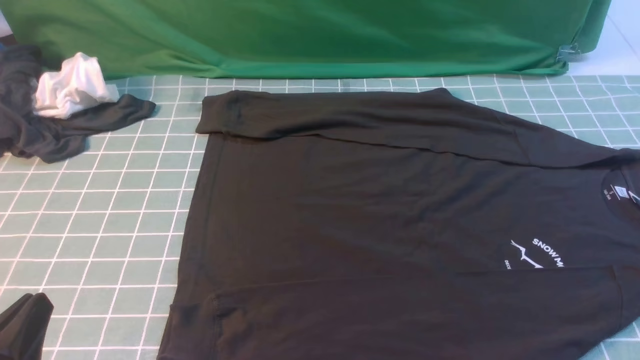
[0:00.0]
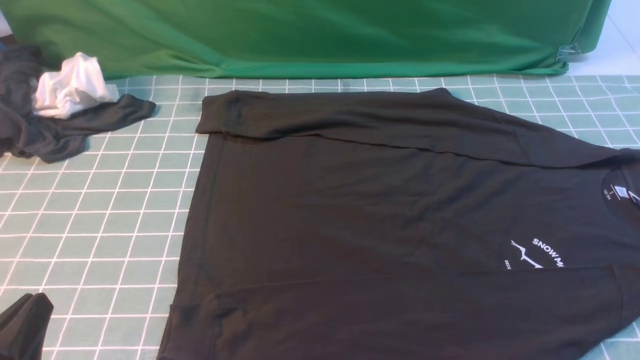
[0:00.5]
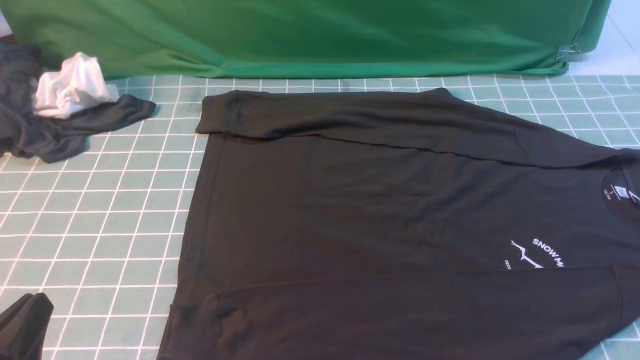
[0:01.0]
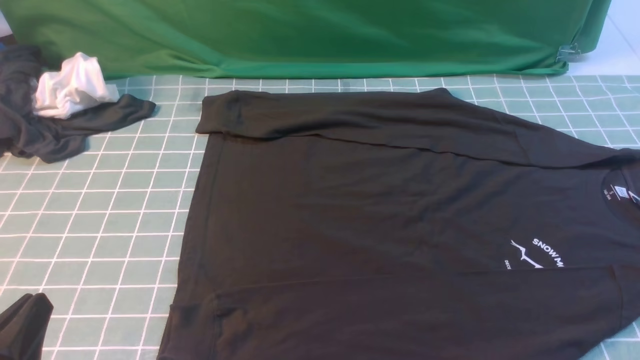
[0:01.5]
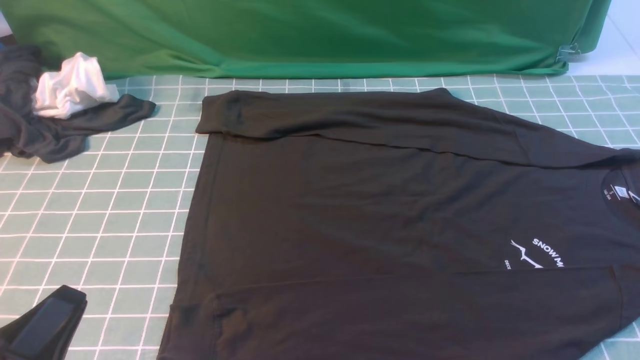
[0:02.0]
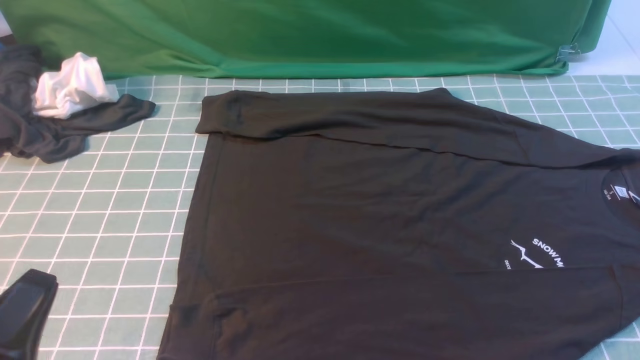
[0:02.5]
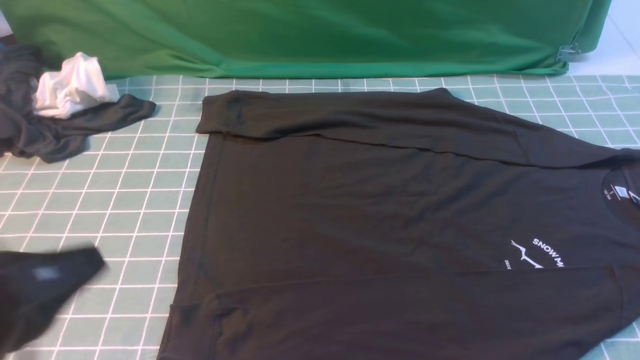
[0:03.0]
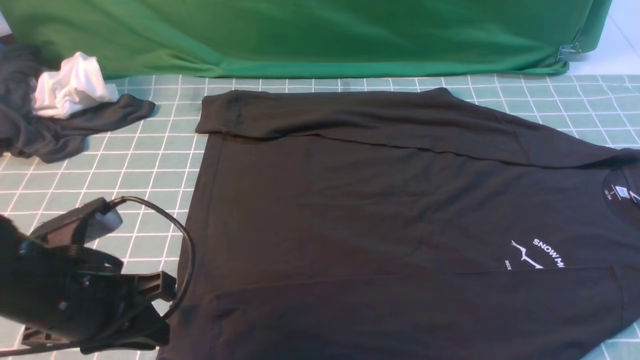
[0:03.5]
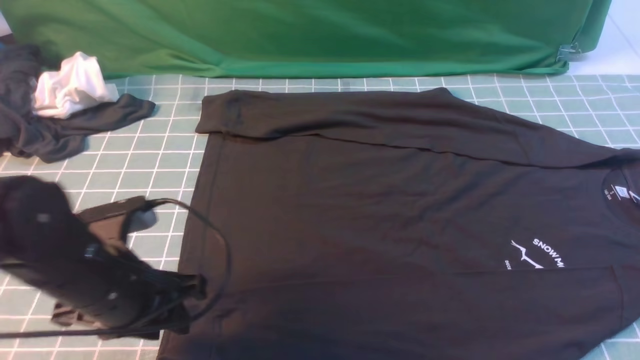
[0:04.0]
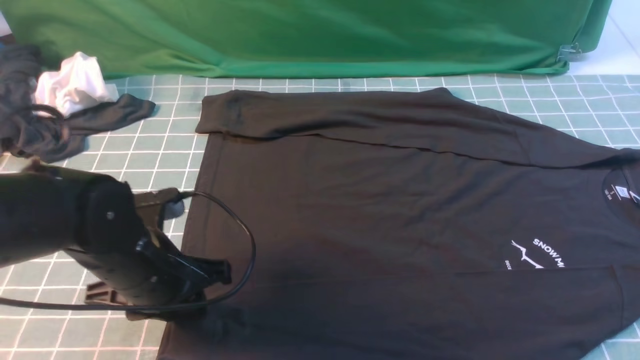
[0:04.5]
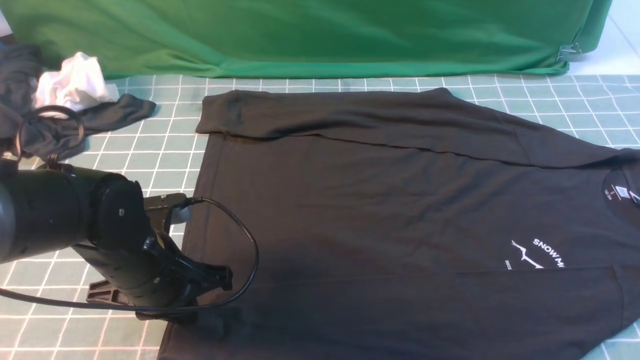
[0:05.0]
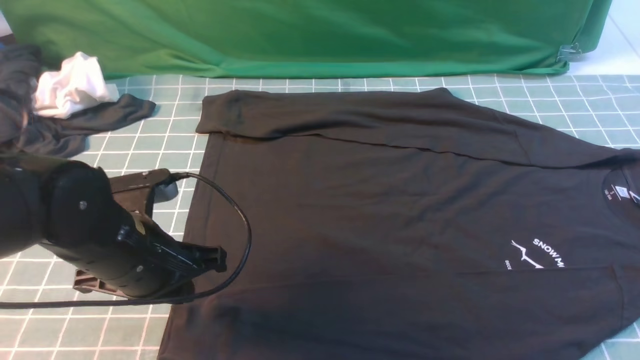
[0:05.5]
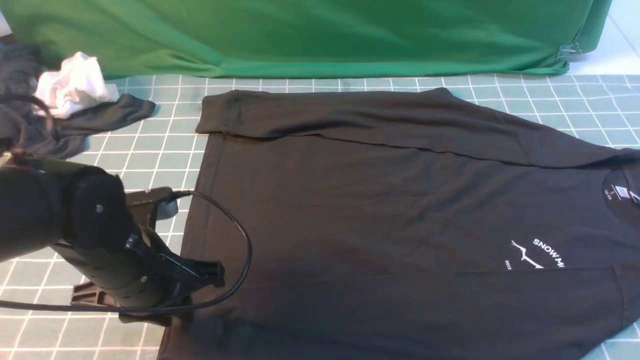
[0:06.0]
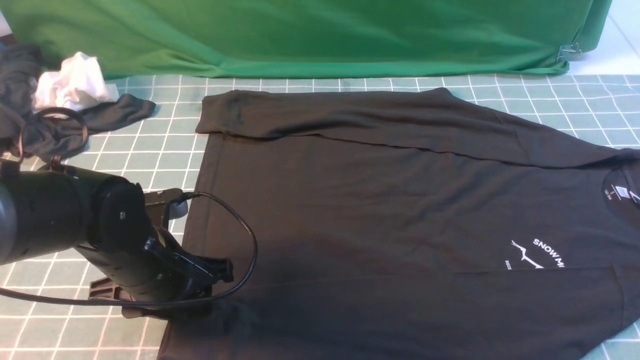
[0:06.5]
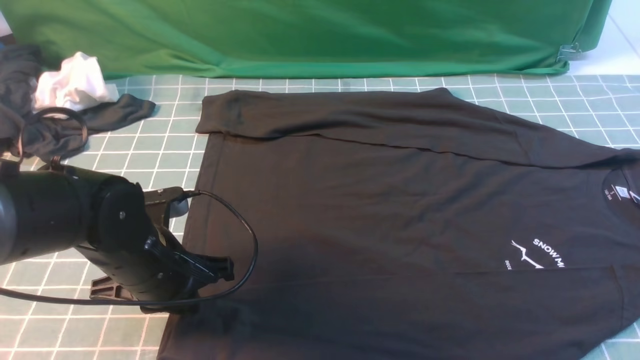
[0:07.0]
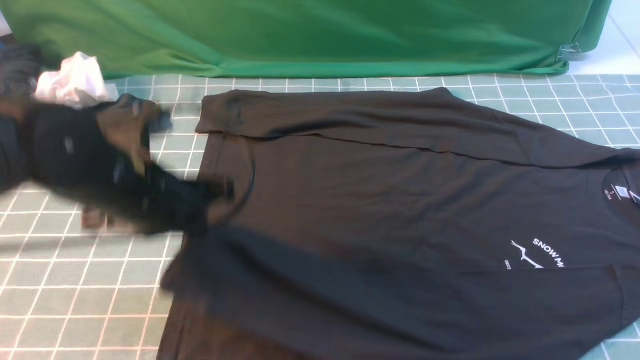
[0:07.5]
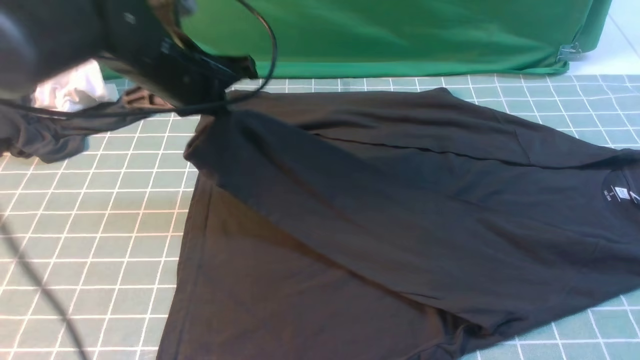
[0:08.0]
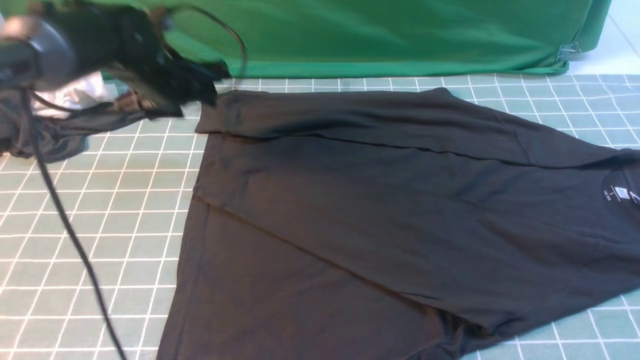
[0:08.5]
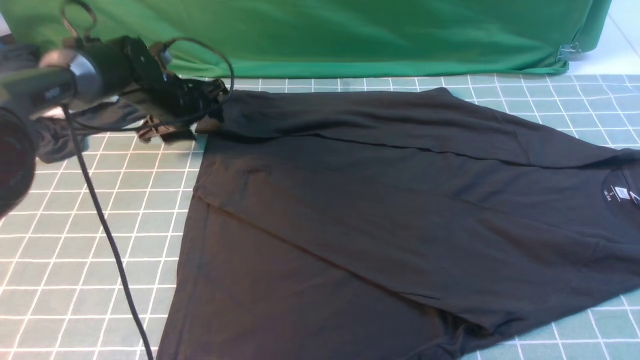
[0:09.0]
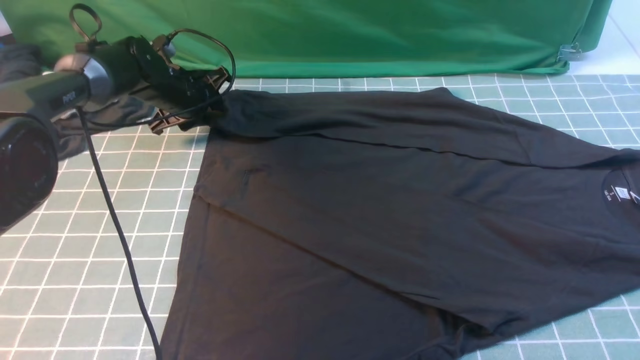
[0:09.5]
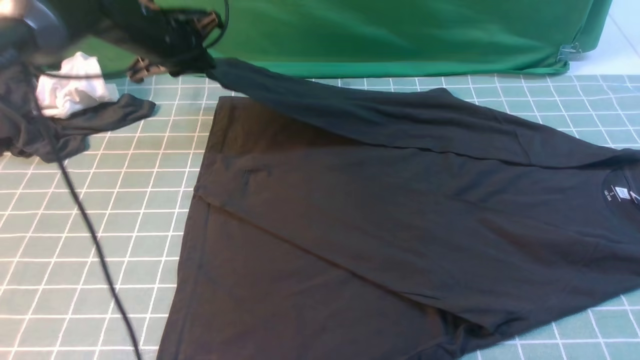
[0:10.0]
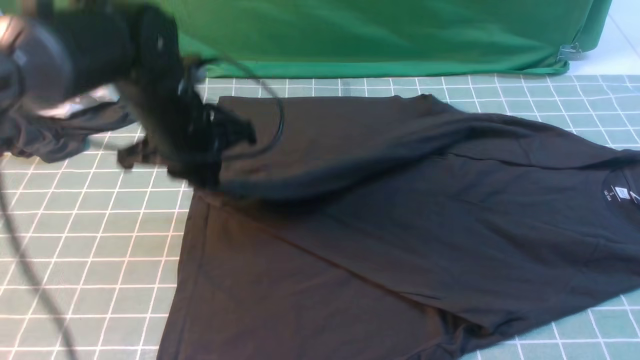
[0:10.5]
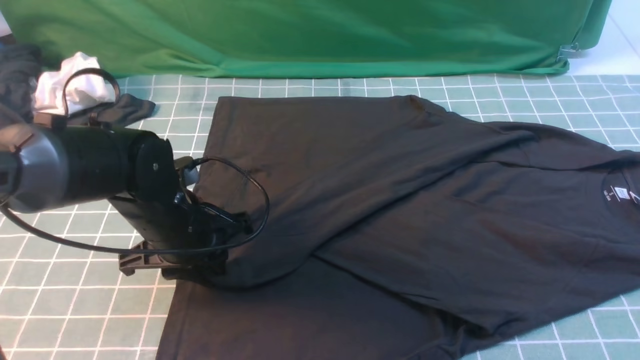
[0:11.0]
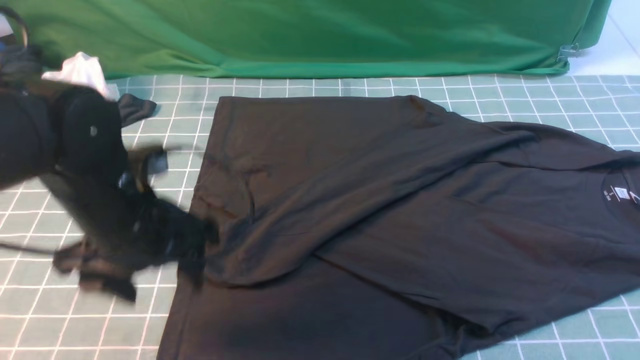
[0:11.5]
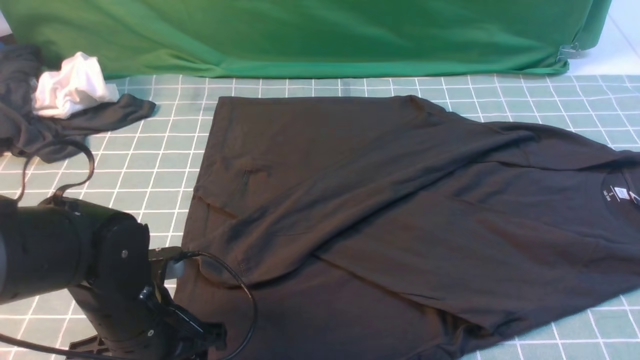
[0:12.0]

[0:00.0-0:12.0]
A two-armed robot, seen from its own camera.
Step, 0.0 to 7.0 s: use the left arm to clamp the cuff closest to it.
Step, 7.5 to 8.0 s: use the left arm to drag and place the cuff at the centered position on the left edge of the fabric.
Step, 8.5 to 9.5 s: use the left arm to clamp the cuff farthest from it.
Step, 10.0 to 11.0 s: use the left arm to drag and drop the cuff onto the cuff closest to the left arm.
2.0 to 4.0 s: The left gripper heads forward, covering roughly 15 cm, and opens its fingers.
4.0 to 6.0 s: The left gripper closes, then opens again.
6.0 to 8.0 s: The left gripper heads forward and upward, covering approximately 20 cm.
8.0 to 10.0 s: The left gripper moves forward, about 10 cm, and opens and closes again.
10.0 to 12.0 s: The left gripper shifts roughly 30 cm backward, and opens.

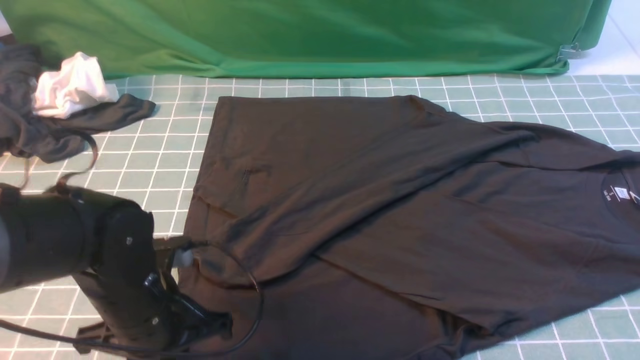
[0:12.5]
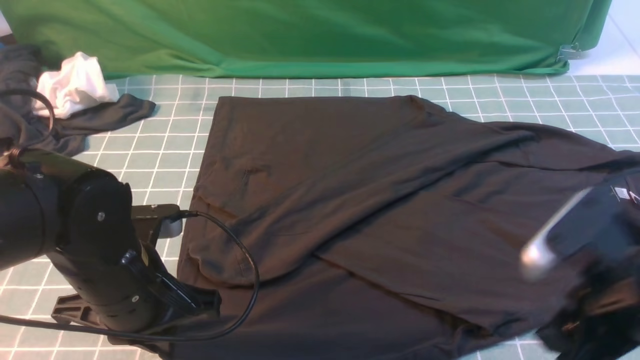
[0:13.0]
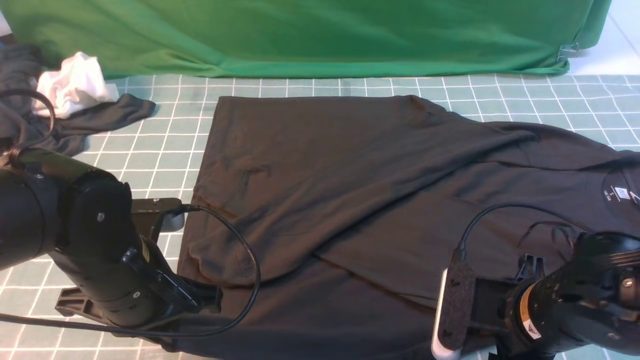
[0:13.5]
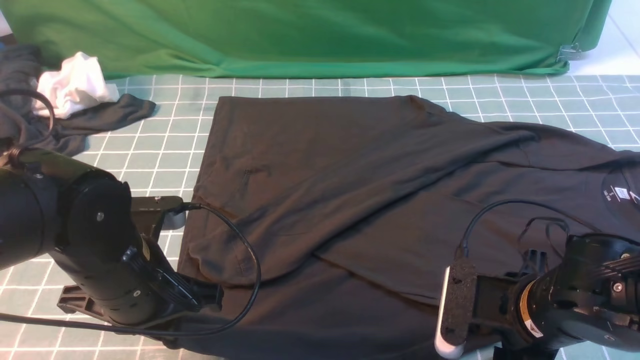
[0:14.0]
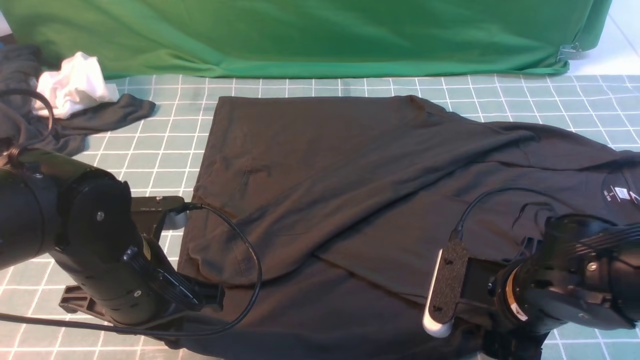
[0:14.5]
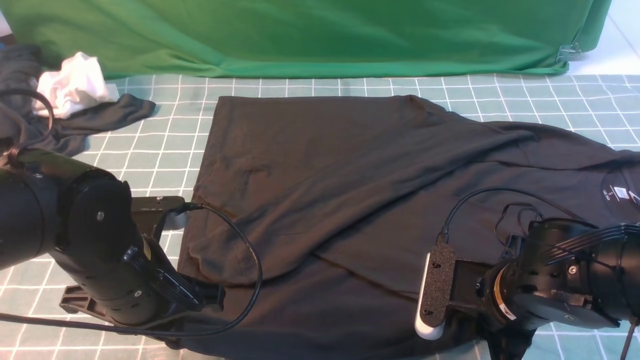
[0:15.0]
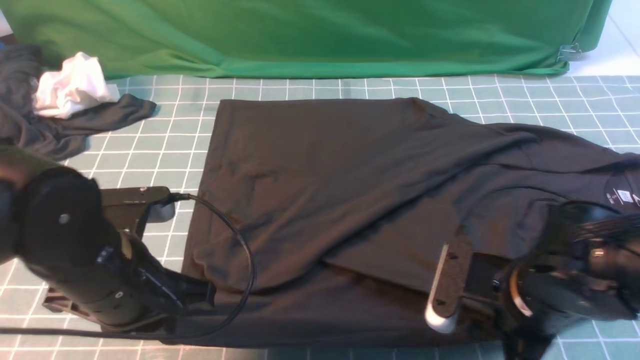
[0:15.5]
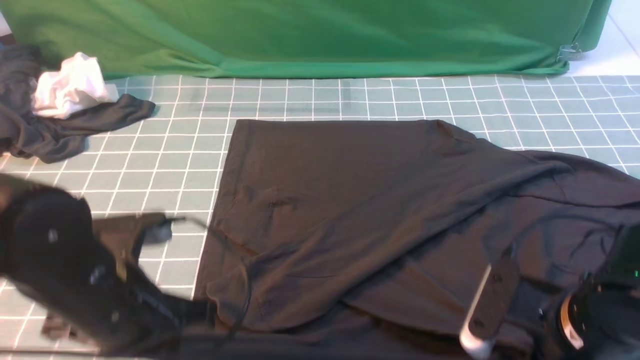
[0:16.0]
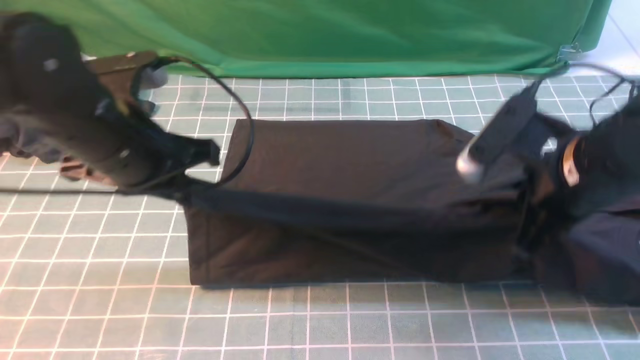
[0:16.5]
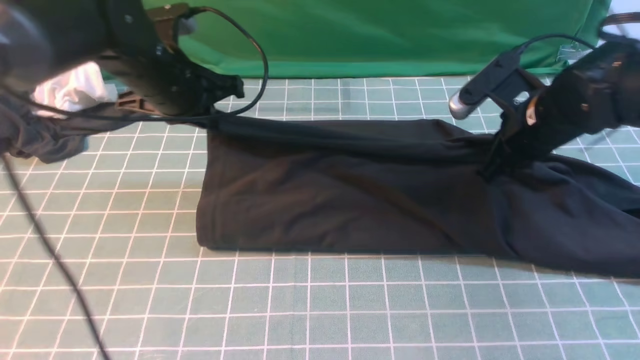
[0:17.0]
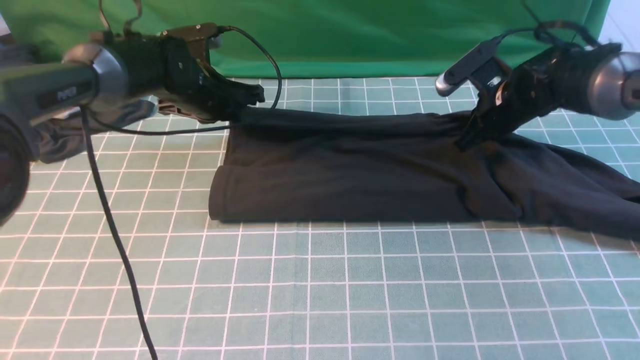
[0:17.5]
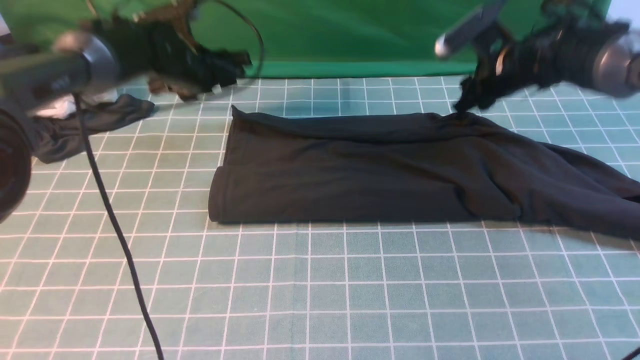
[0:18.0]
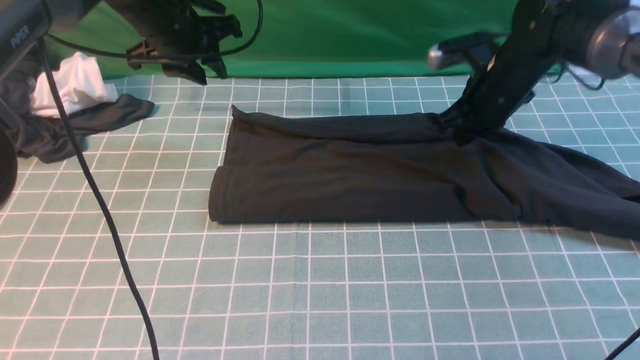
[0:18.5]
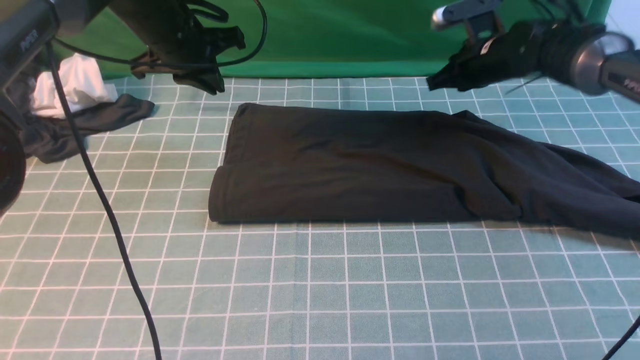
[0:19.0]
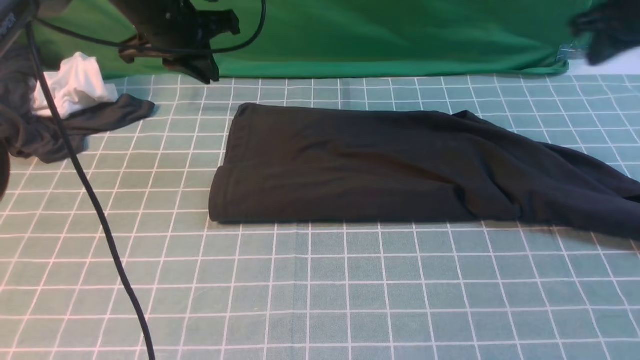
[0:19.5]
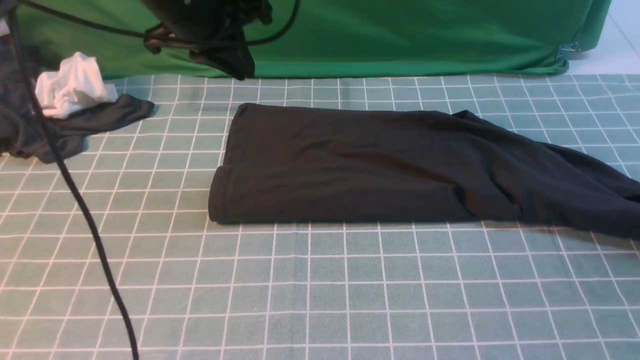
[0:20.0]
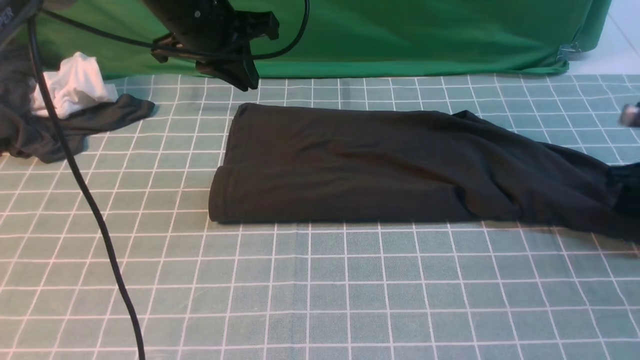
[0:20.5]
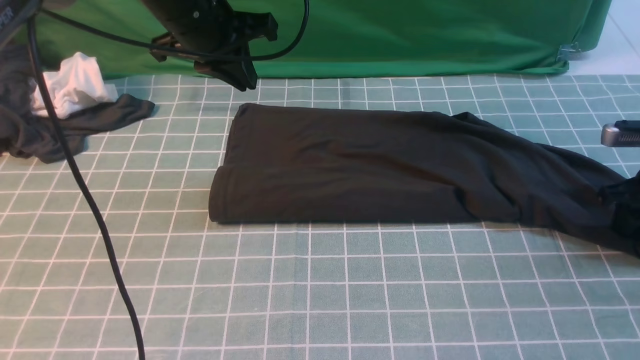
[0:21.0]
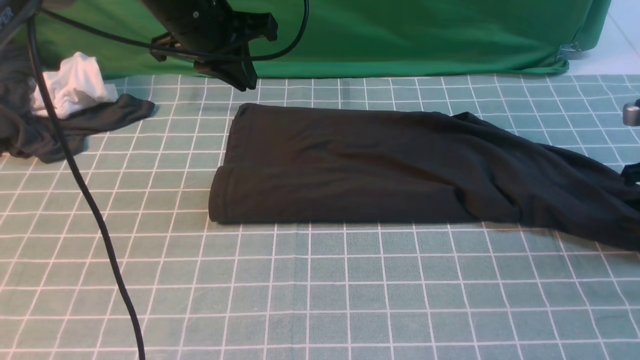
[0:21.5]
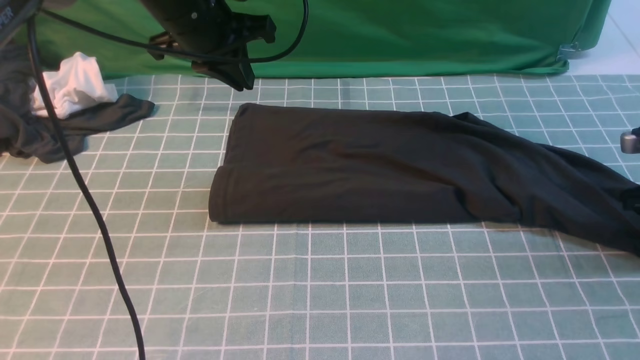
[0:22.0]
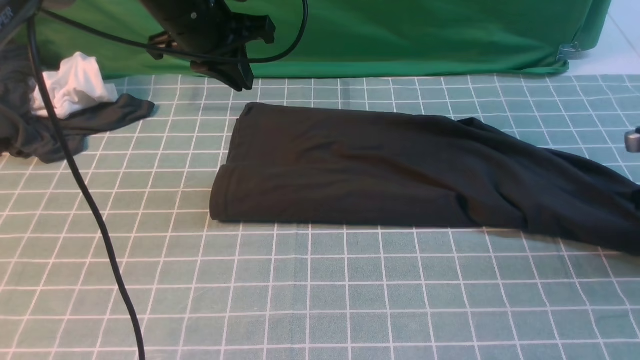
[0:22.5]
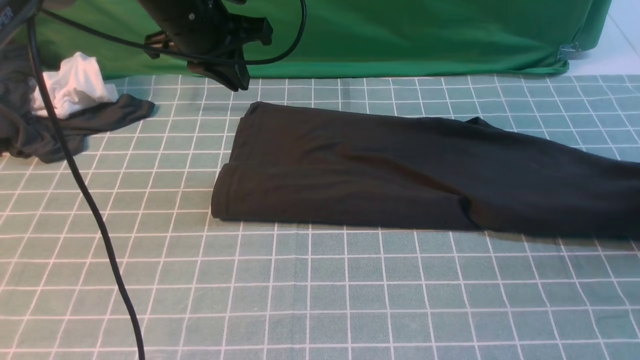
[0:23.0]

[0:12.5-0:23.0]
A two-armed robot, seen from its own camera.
Step, 12.5 to 15.5 s: use both arms simultaneously to clamp the lower edge of the clothing fabric.
Step, 16.0 to 18.0 s: use both arms to drag the lower edge of the fabric forward and fold it over the upper edge.
12.5 to 14.5 s: The right gripper travels downward and to the left by about 20 cm, and opens its fingers.
14.5 to 16.5 s: The right gripper heads upward and forward, covering roughly 10 cm, and closes its fingers. Meanwhile the left gripper is displaced forward and upward by approximately 10 cm.
16.5 to 19.0 s: Both grippers move forward, approximately 20 cm. The right gripper opens, then closes again. The left gripper opens and closes again.
19.0 to 21.0 s: The left gripper ends up approximately 10 cm from where it was. Meanwhile the right gripper travels to the right and backward by some 25 cm, and opens its fingers.
21.0 to 23.0 s: The right gripper moves approximately 5 cm, and closes its fingers.
